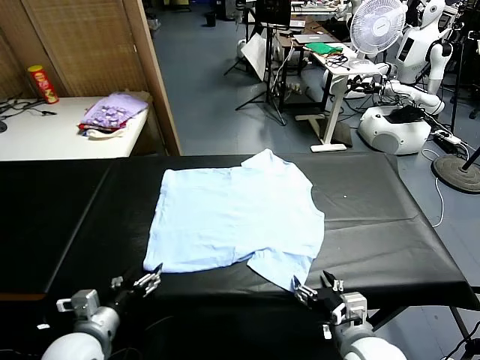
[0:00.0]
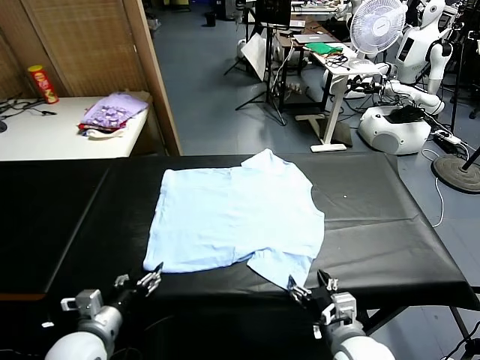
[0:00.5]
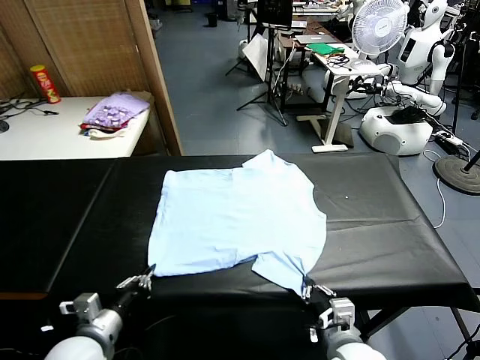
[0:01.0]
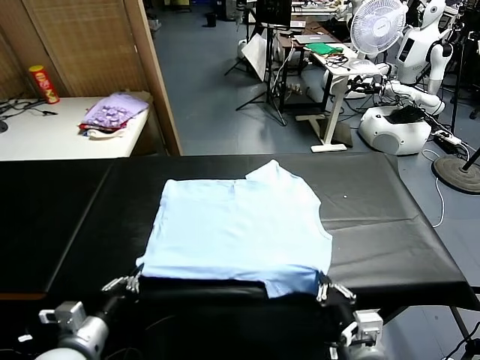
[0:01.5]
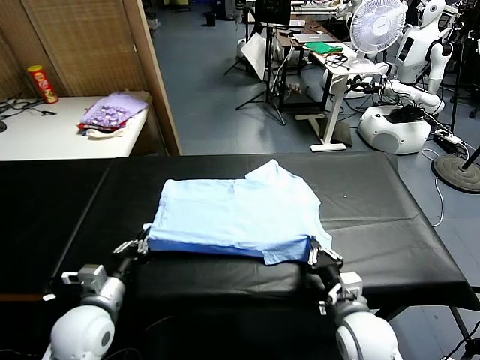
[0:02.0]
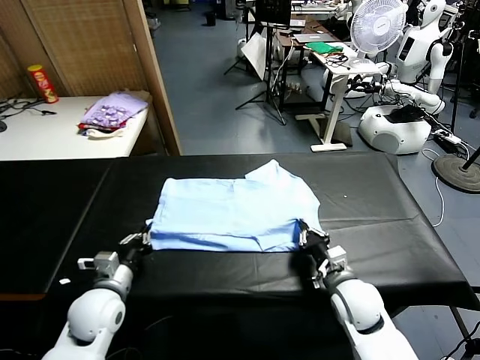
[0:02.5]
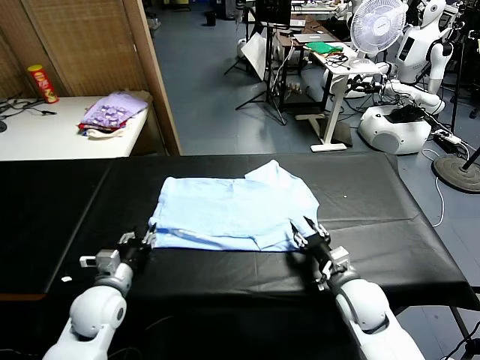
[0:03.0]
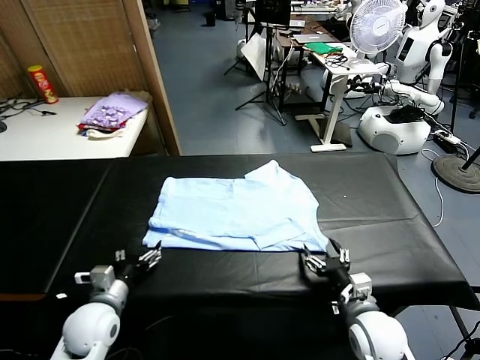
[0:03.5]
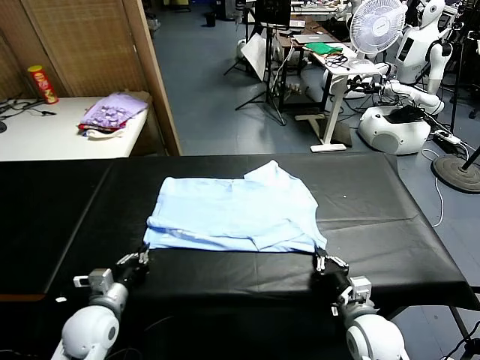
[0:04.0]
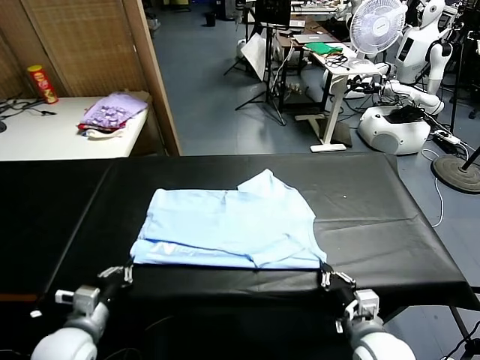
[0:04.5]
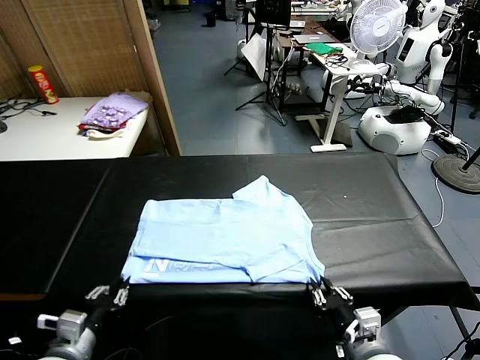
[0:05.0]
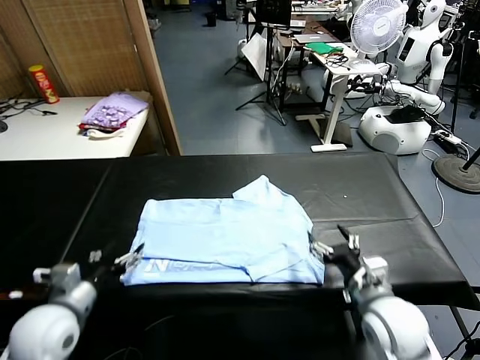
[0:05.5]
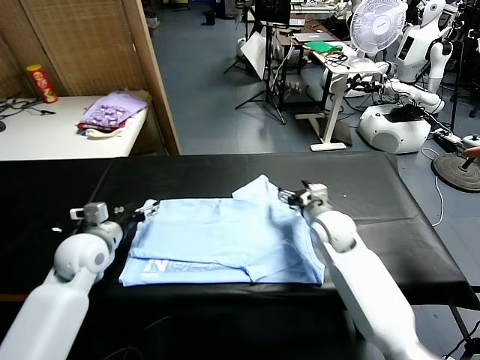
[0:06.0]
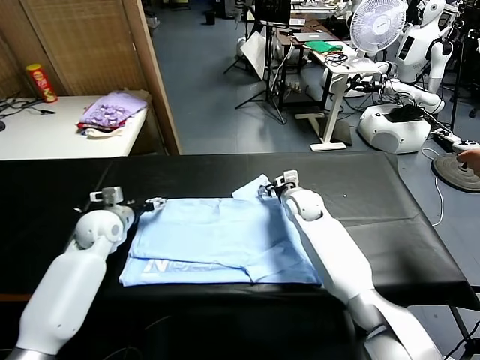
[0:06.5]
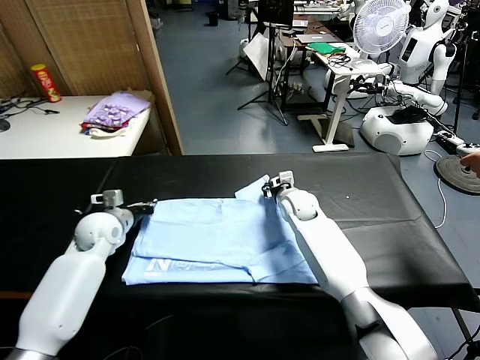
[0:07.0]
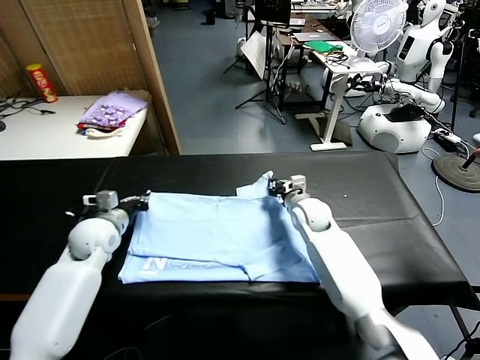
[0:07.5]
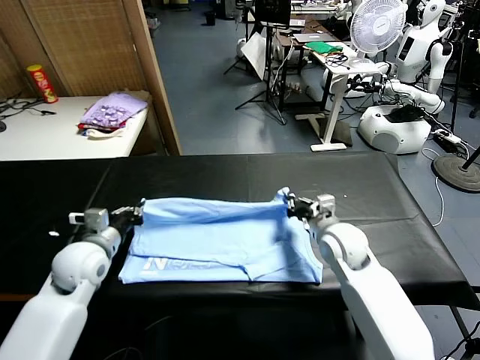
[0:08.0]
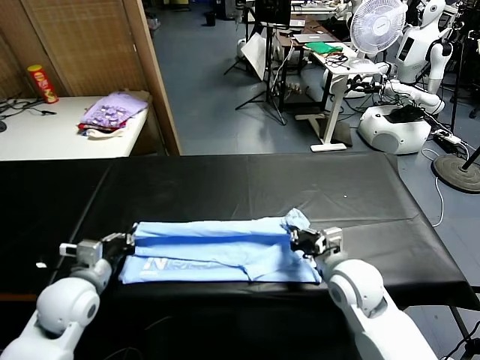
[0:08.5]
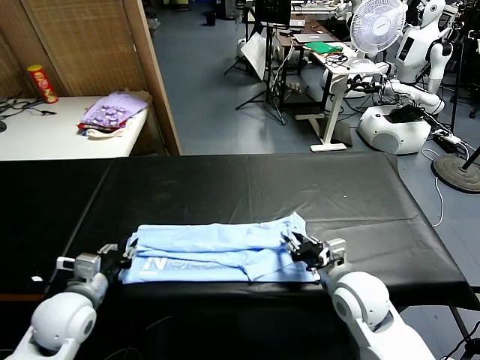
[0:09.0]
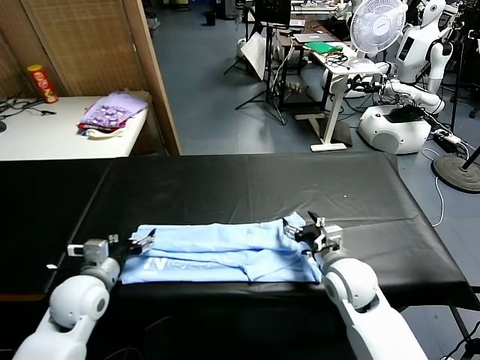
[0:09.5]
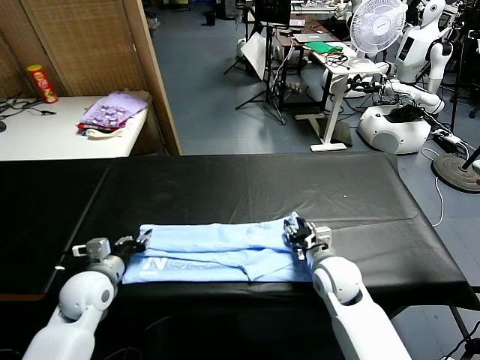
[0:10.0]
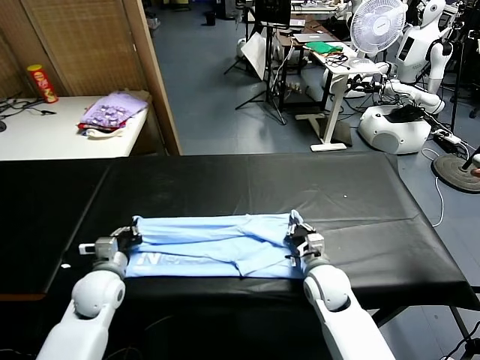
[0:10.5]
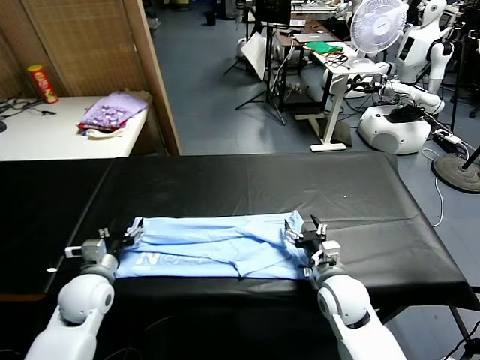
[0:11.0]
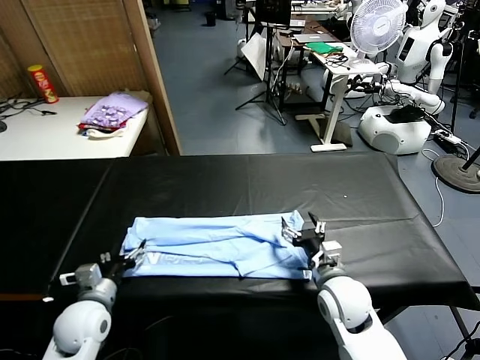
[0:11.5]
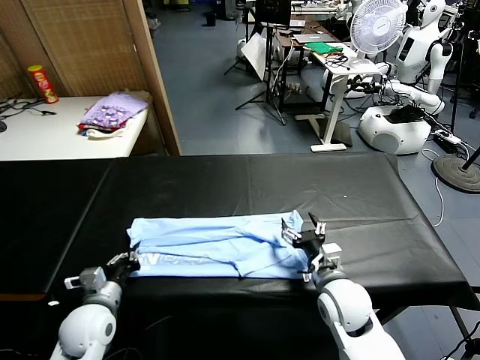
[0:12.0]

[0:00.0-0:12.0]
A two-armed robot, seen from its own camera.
Task of the whole recording: fold and organize the clothes.
Step, 0:00.0 to 0:01.0: use both grippers simultaneously to clamp the lower edge of the clothing fabric.
Step, 0:01.5 to 0:02.5: use both grippers to drag the lower edge of the fabric forward and fold it over the upper edge.
Step, 0:03.0 to 0:05.0: Drag the clothes downward with both gripper.
Step, 0:05.5 to 0:07.0: use both grippers simultaneously to clamp the upper edge of the clothing fabric.
Step, 0:07.5 to 0:09.0: use both grippers to drag the upper edge of the fabric backward and fold it over the lower edge.
Step, 0:09.5 to 0:12.0: use the left gripper to clamp the left edge of the fabric.
0:02.0 to 0:04.0: The left gripper goes about 5 cm downward, and opens, then closes once more. Meanwhile the right gripper is displaced backward by about 5 cm, and opens and closes again.
0:04.0 to 0:06.0: The right gripper travels forward by roughly 25 cm, and opens up. Meanwhile the left gripper heads forward and upward, covering roughly 15 cm, and opens its fingers.
0:06.0 to 0:08.0: The left gripper closes up, while the right gripper travels backward by approximately 15 cm, and closes its fingers.
0:08.0 to 0:10.0: Both grippers move downward, some 5 cm. The left gripper reaches roughly 10 cm backward, then returns, and opens up, while the right gripper opens and closes again.
0:10.0 to 0:12.0: Both grippers travel together backward, roughly 5 cm. The right gripper opens its fingers; the left gripper opens, then closes again.

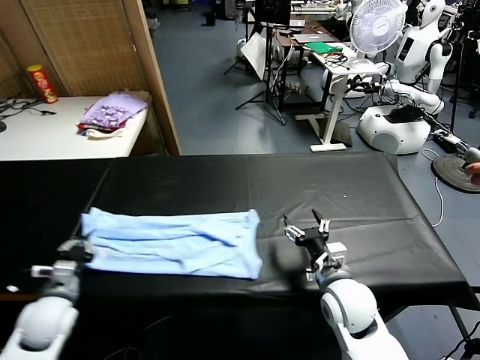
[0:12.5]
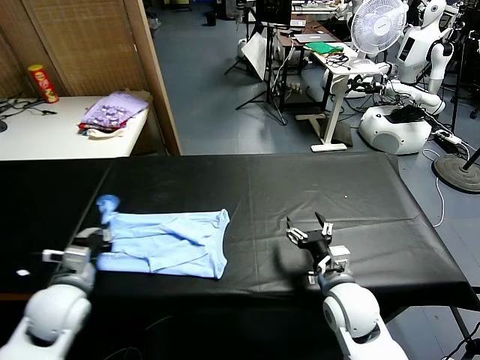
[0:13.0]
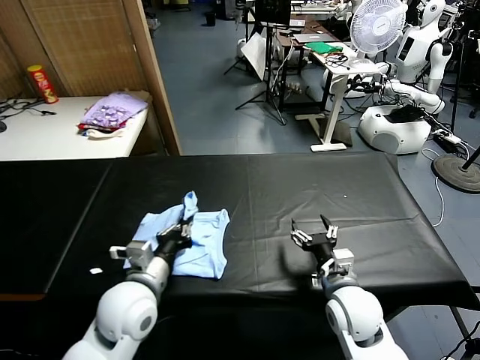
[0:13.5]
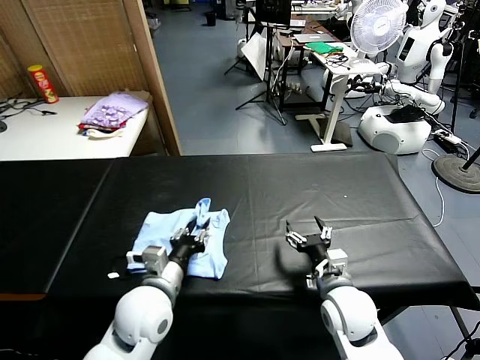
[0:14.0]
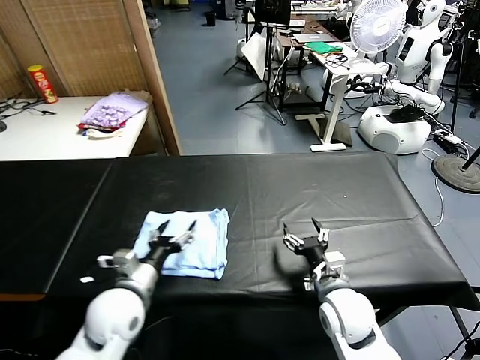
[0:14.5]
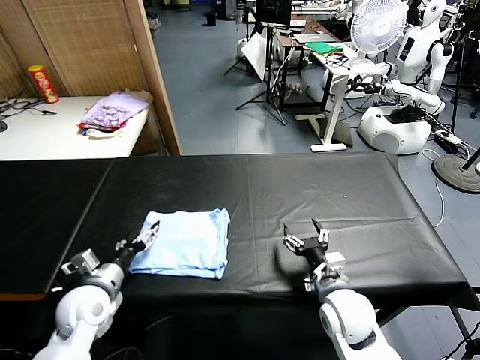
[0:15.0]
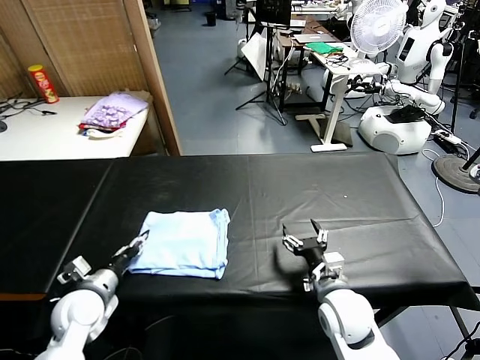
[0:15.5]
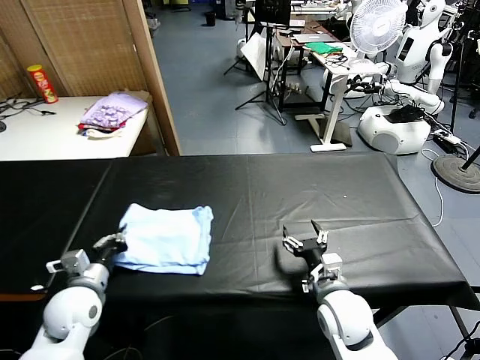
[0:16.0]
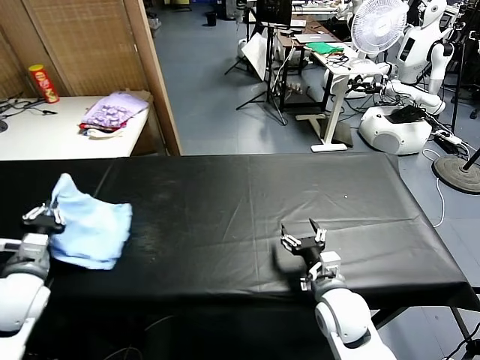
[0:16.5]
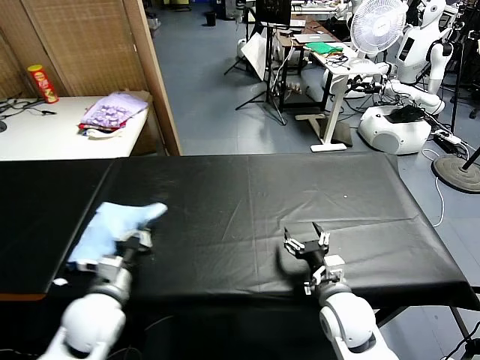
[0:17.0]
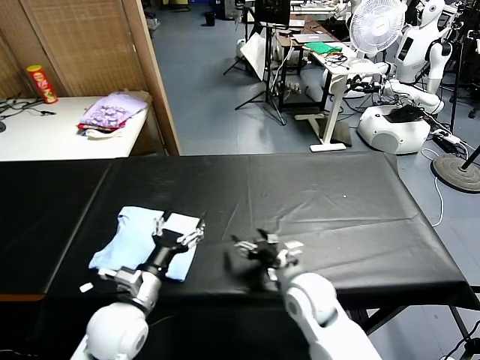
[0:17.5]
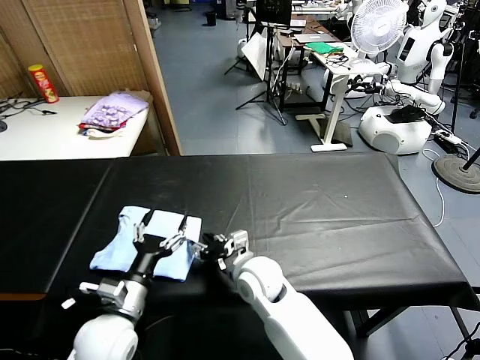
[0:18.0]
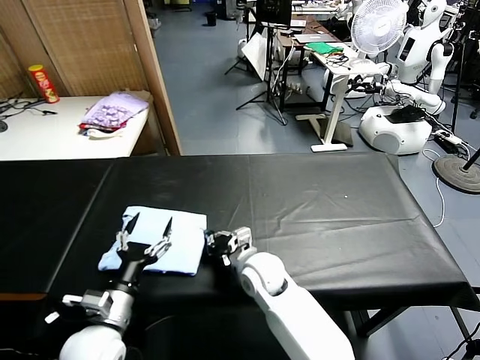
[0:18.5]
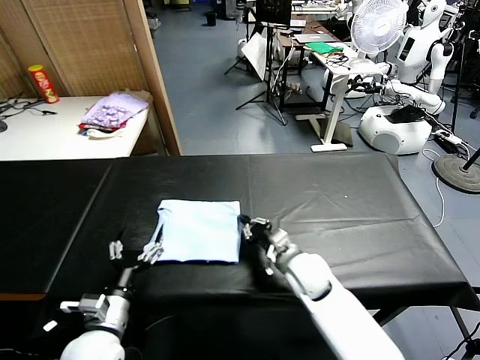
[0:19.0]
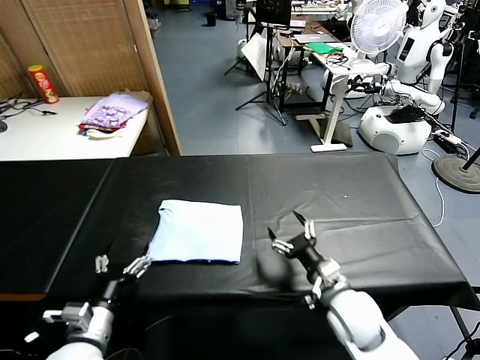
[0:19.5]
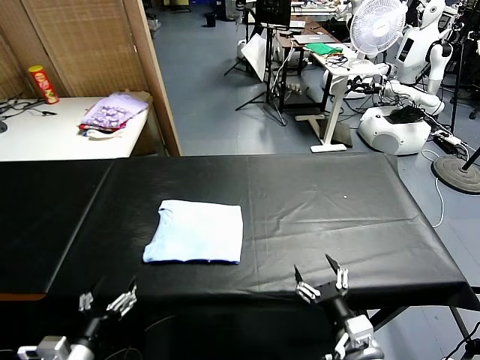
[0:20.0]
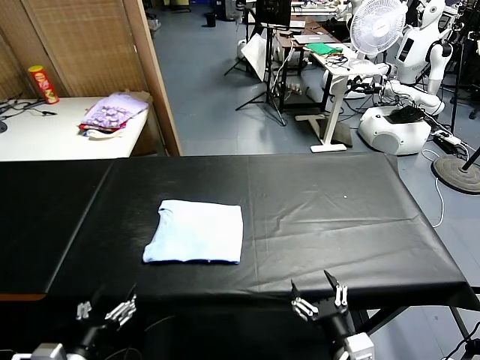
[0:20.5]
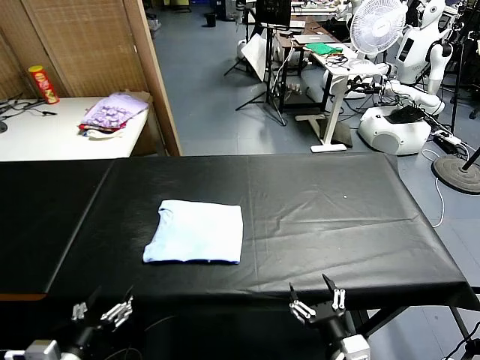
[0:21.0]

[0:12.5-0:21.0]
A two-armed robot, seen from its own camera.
Task of the whole recording: fold and organize the clothes.
Step, 0:12.5 to 0:14.0: use the left gripper to drag the left edge of the fabric to the left and folds it over the right edge.
Step, 0:14.5 to 0:17.0: Flip the folded clothes over with left gripper.
Step, 0:17.5 to 0:19.0: Drag the clothes to the center of the table.
0:12.5 to 0:14.5: The left gripper is displaced to the right by approximately 15 cm, and opens up.
0:14.5 to 0:16.5: The left gripper travels to the left by approximately 20 cm, and closes up.
0:16.5 to 0:19.0: The left gripper is displaced to the right, backward and downward by about 20 cm, and opens its fingers. Meanwhile the right gripper travels forward and to the left by some 10 cm, and closes its fingers.
0:19.0 to 0:21.0: The right gripper heads backward, covering about 25 cm, and opens. Meanwhile the left gripper heads backward, covering roughly 10 cm.

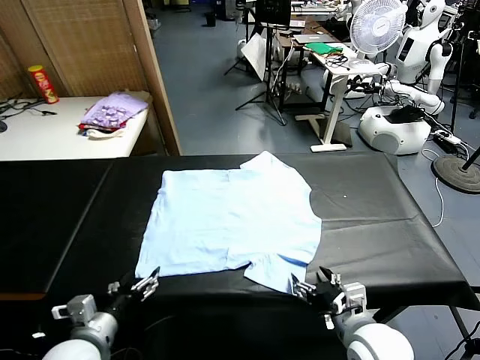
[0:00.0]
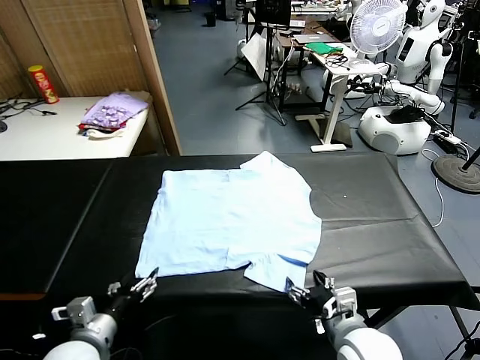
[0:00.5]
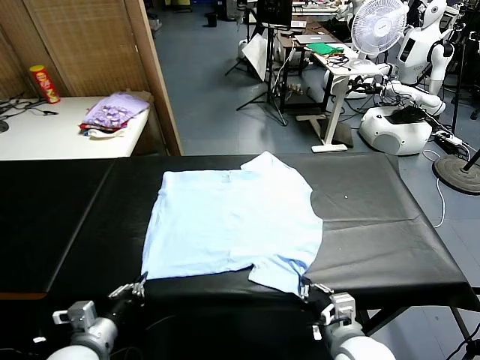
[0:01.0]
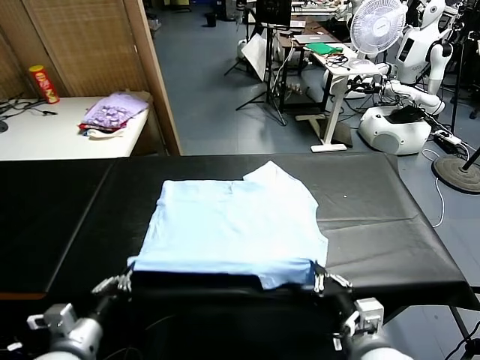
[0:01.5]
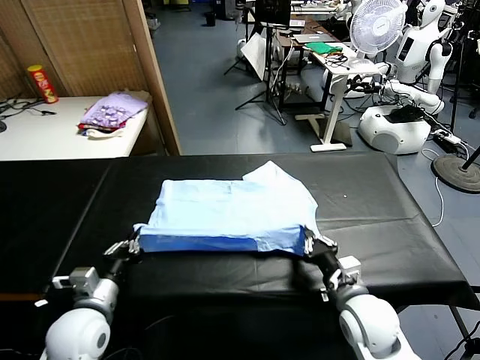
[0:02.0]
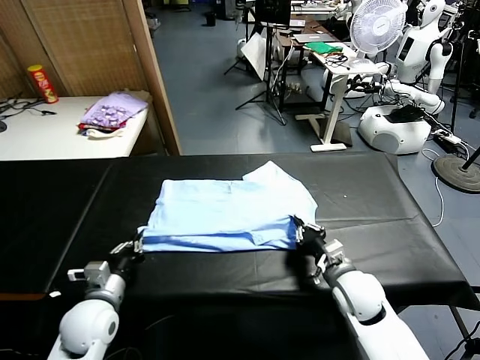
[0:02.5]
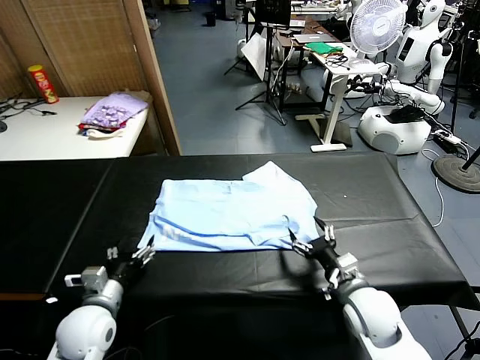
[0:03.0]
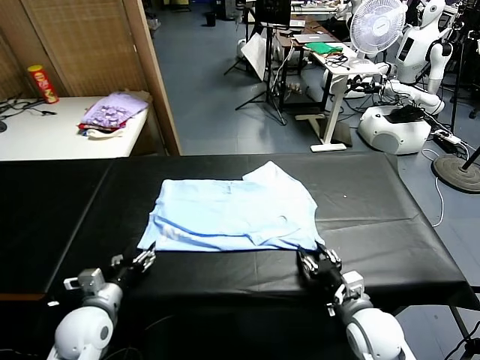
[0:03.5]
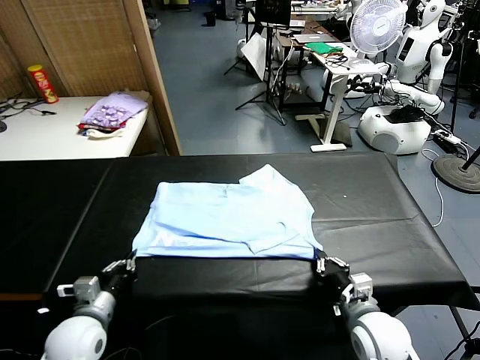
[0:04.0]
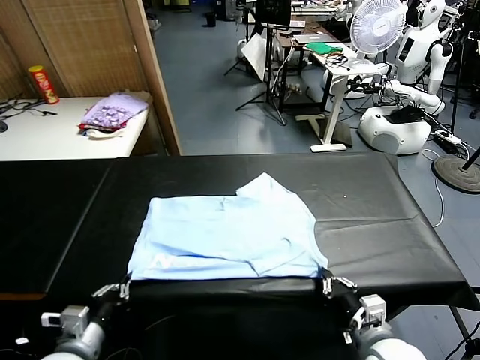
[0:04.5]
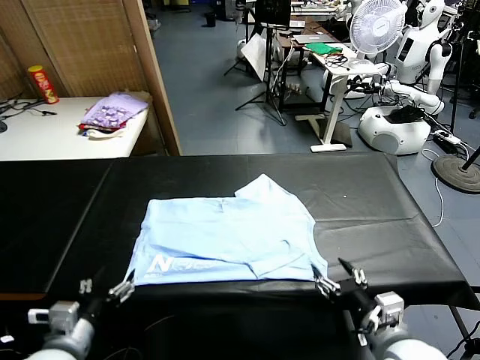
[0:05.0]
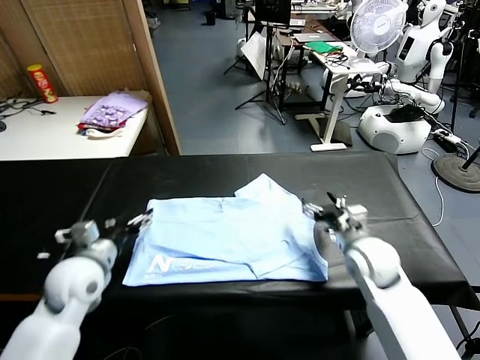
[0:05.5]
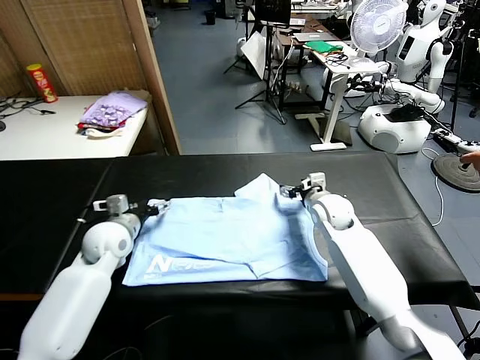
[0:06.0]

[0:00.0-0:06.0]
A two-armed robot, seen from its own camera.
Task of the whole recording: fold and organize the clothes.
Step, 0:00.0 to 0:01.0: use both grippers simultaneously to clamp the lower edge of the clothing fabric.
Step, 0:01.5 to 0:02.5: use both grippers to drag the lower edge of the fabric forward and fold it over the upper edge.
Step, 0:03.0 to 0:04.5: Drag the clothes downward with both gripper.
0:02.0 to 0:04.0: The right gripper heads backward, covering roughly 10 cm, and opens and closes again. The left gripper opens, then closes again.
0:04.0 to 0:06.0: Both grippers move forward, roughly 25 cm. The right gripper opens up; the left gripper opens.
